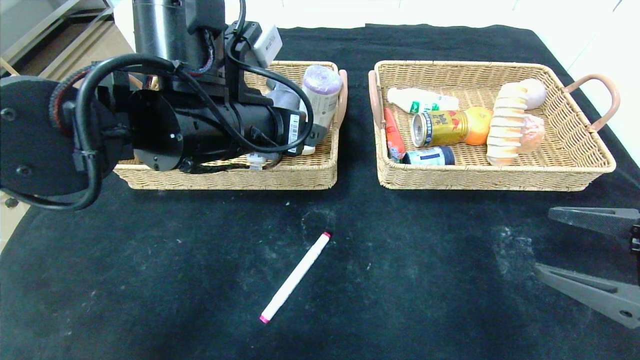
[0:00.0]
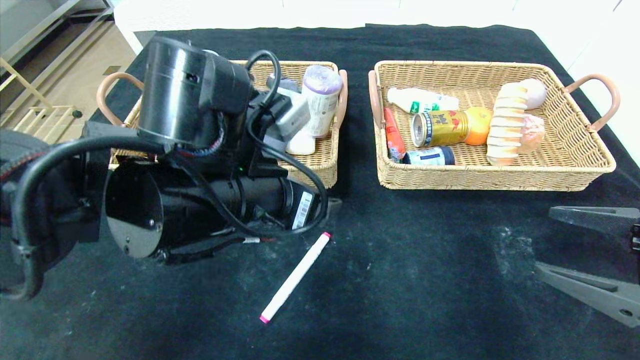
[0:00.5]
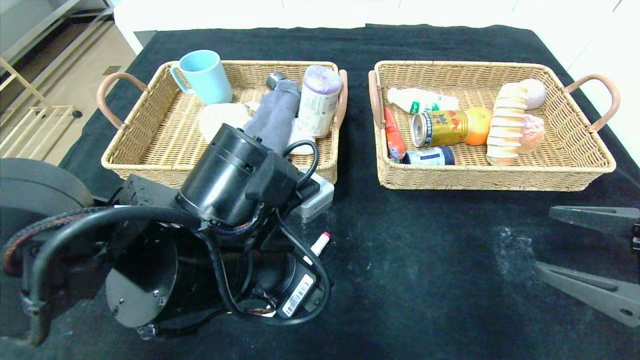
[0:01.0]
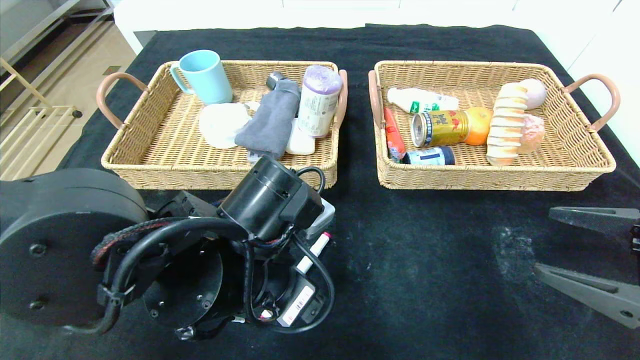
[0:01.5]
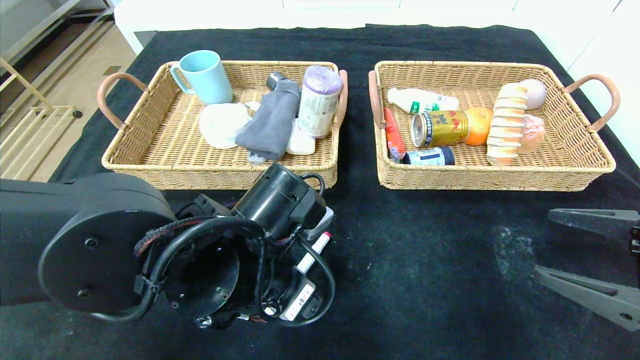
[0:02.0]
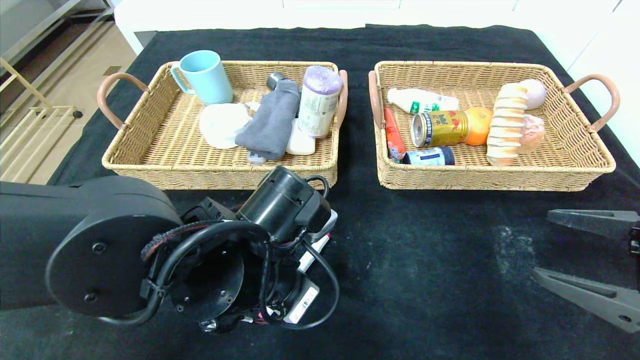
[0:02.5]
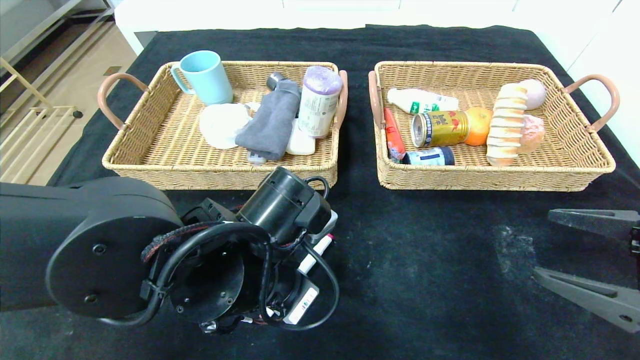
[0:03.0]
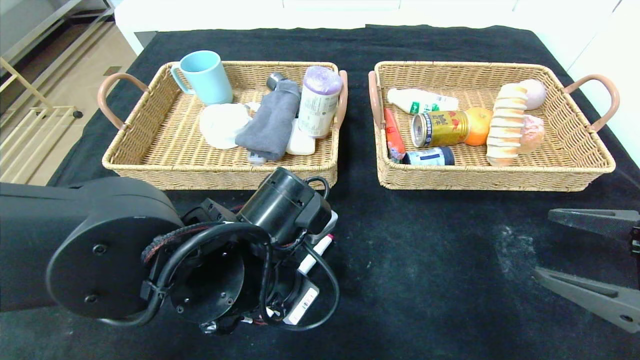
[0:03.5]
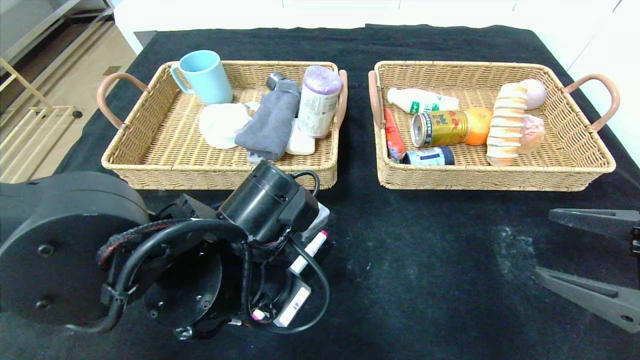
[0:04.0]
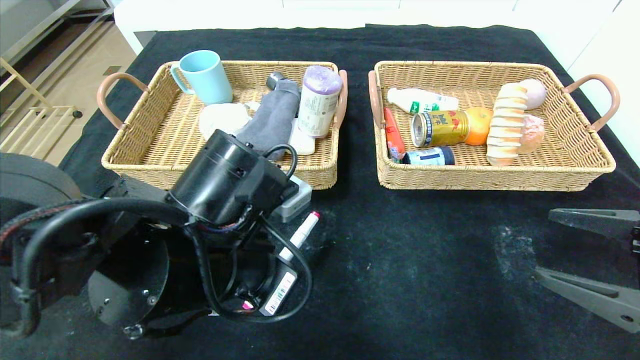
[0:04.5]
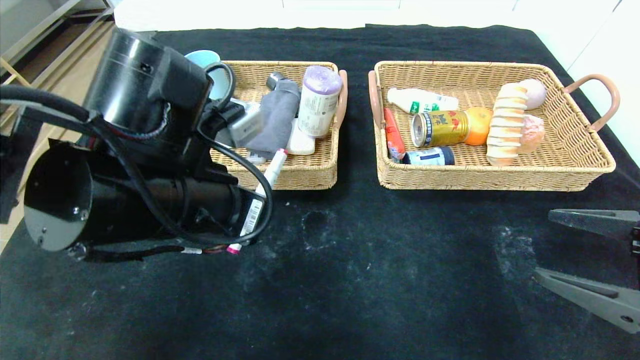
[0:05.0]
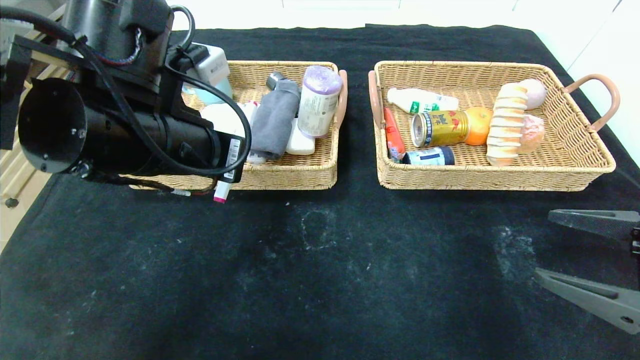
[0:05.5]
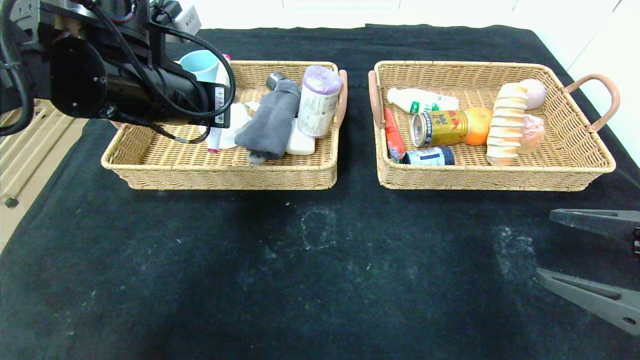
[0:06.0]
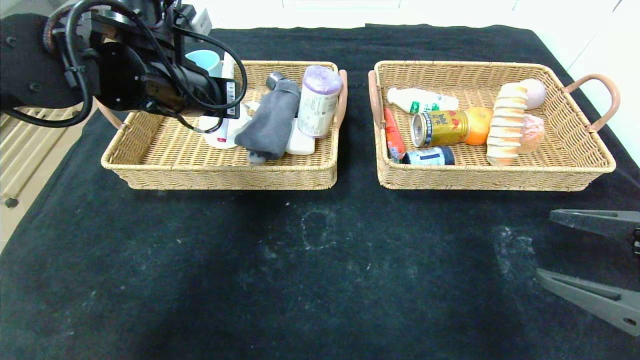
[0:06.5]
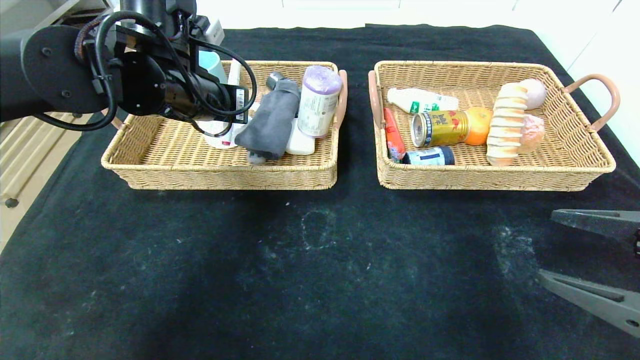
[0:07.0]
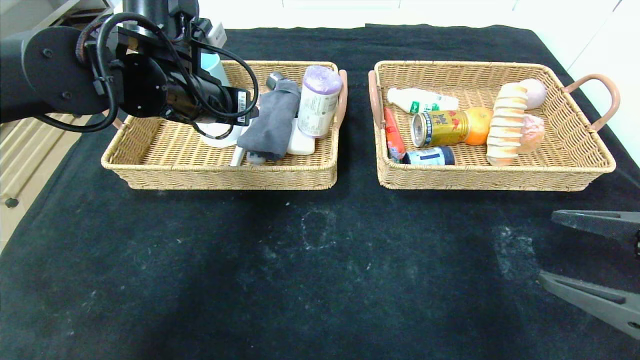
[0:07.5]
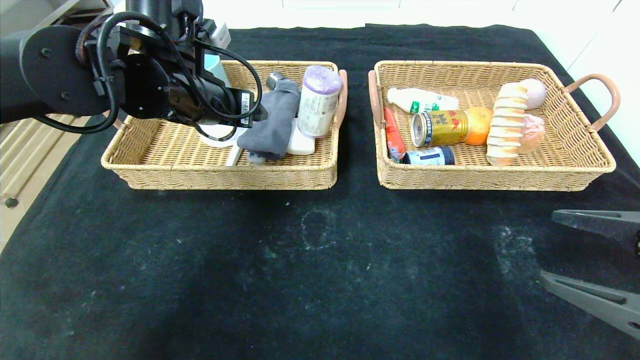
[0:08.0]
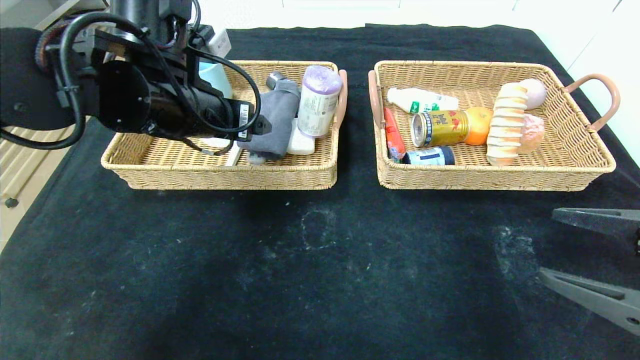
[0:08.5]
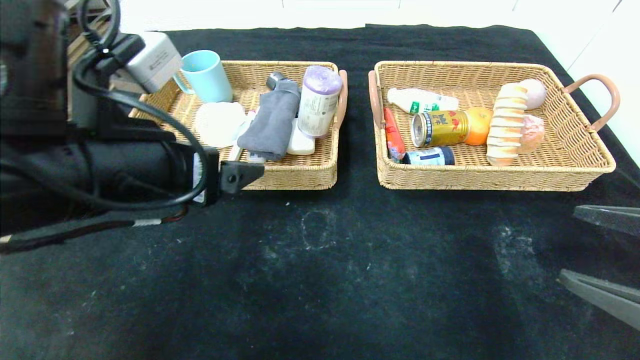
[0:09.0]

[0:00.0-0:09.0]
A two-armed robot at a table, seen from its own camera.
0:00.0 to 0:02.0: The left gripper moves downward and backward, approximately 15 cm.
0:02.0 to 0:04.5: The left gripper closes.
0:04.5 to 0:07.0: The left gripper goes about 20 cm forward, upward and to the left.
0:07.0 to 0:09.0: The left gripper is displaced backward by roughly 15 cm, and opens.

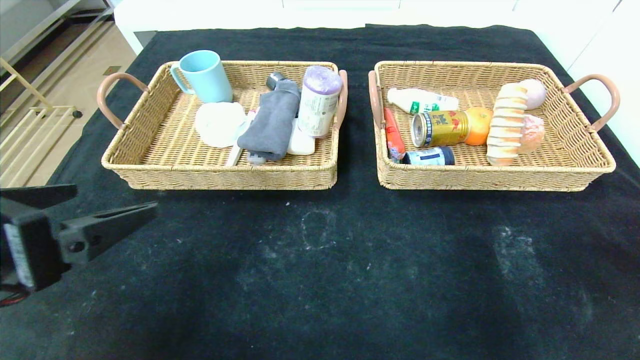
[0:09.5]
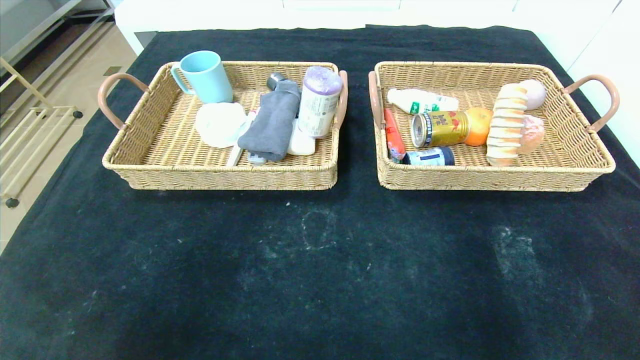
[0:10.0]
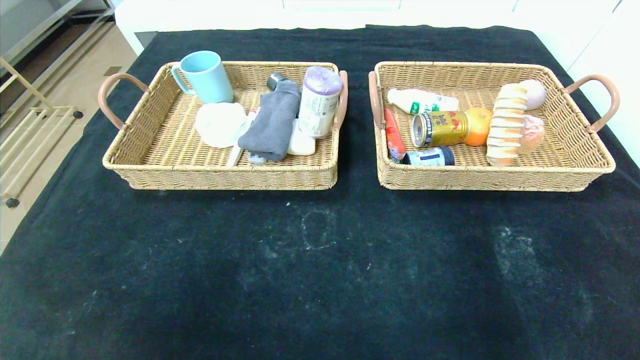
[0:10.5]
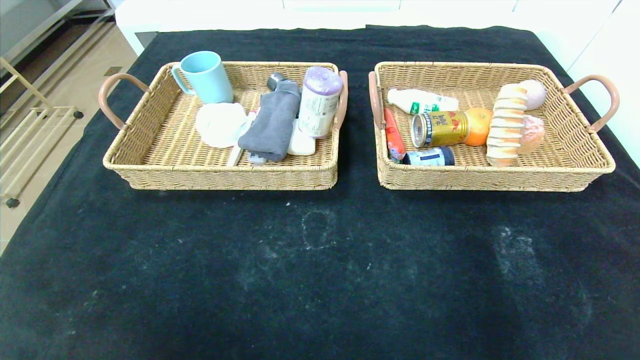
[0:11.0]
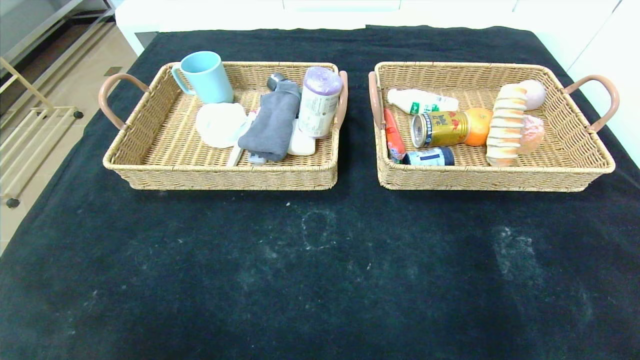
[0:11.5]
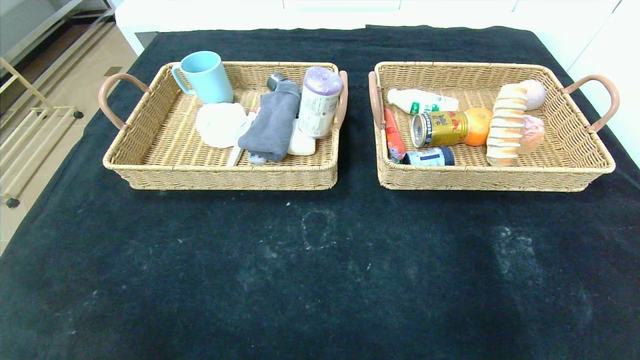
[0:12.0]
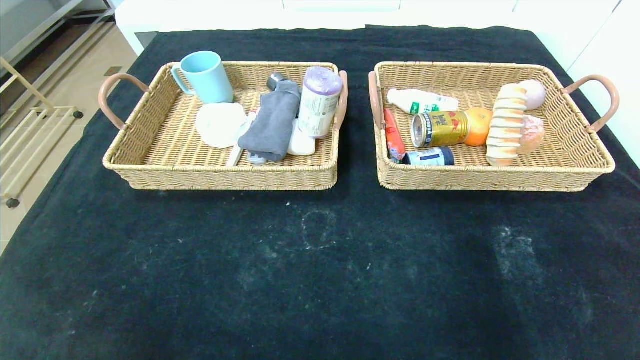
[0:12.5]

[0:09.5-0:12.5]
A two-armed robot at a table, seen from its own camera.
0:09.5 to 0:11.0: The right gripper travels backward and downward by about 15 cm. The left gripper shifts approximately 25 cm backward and downward.
